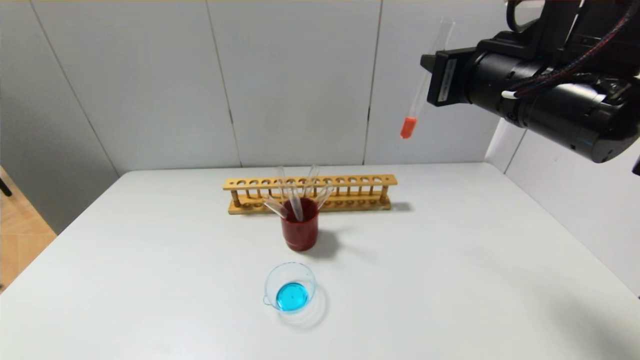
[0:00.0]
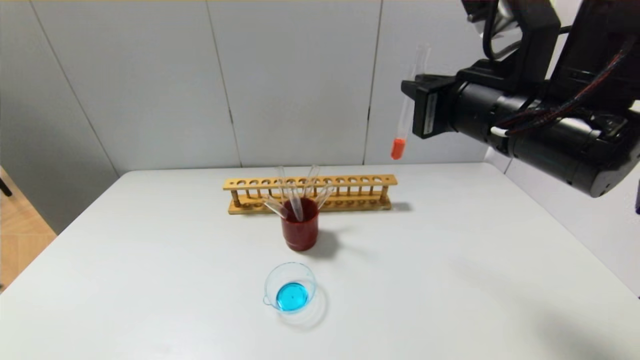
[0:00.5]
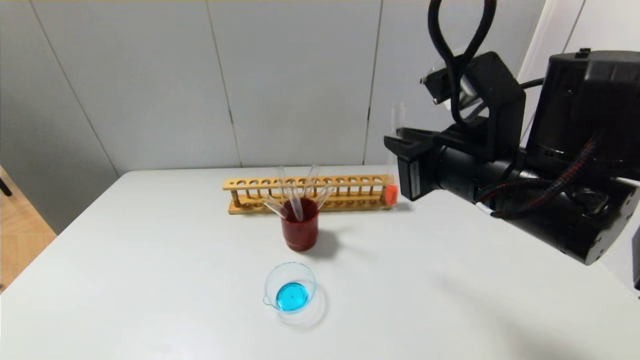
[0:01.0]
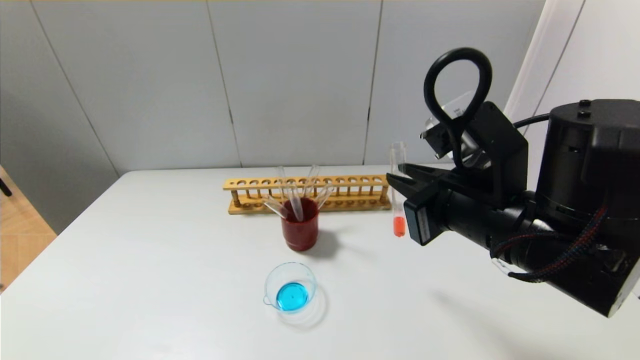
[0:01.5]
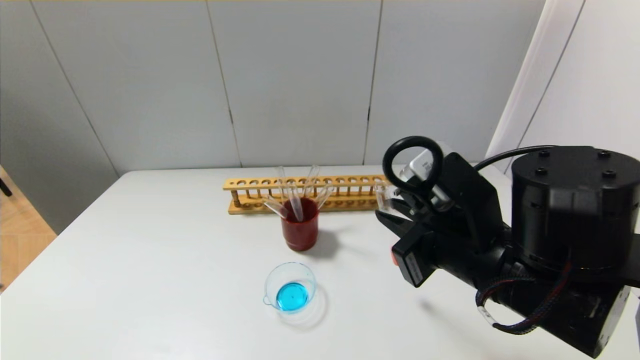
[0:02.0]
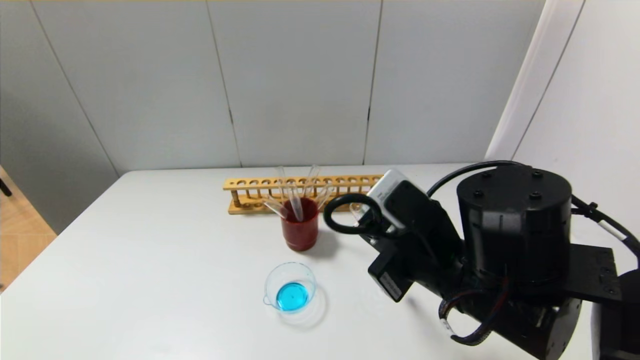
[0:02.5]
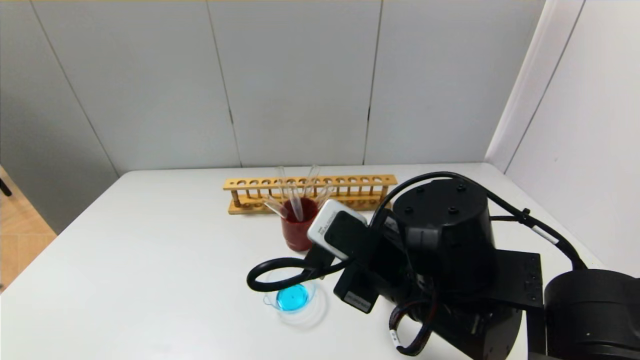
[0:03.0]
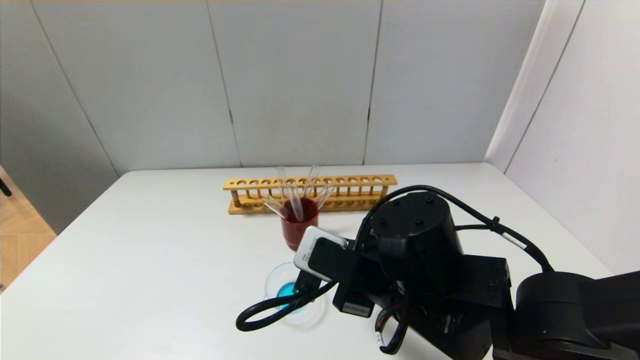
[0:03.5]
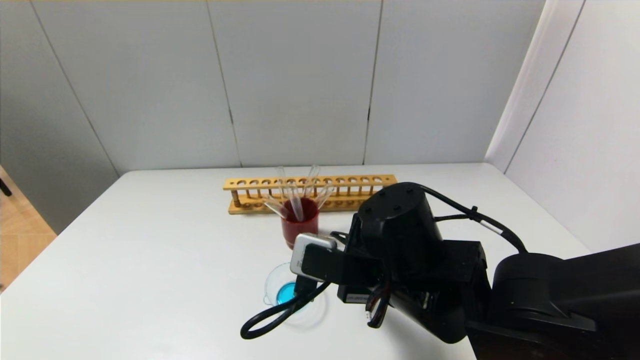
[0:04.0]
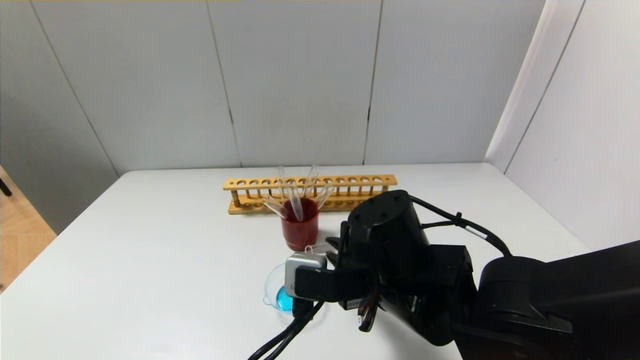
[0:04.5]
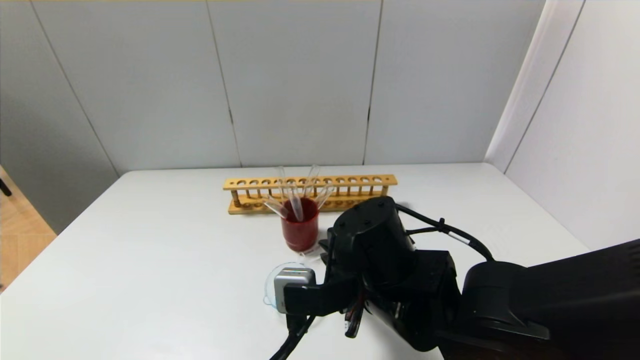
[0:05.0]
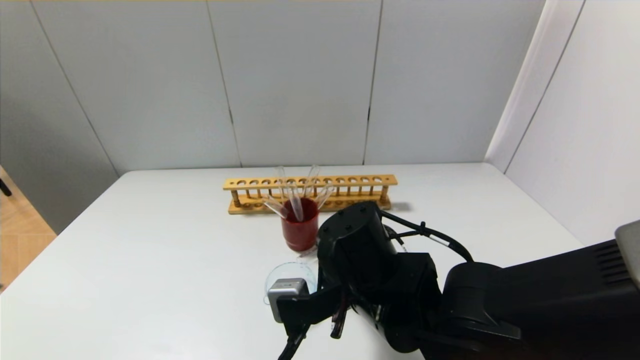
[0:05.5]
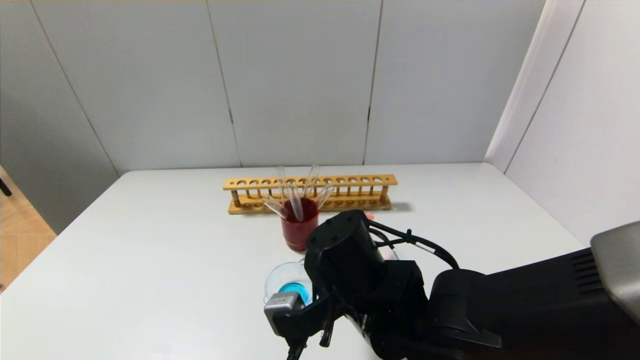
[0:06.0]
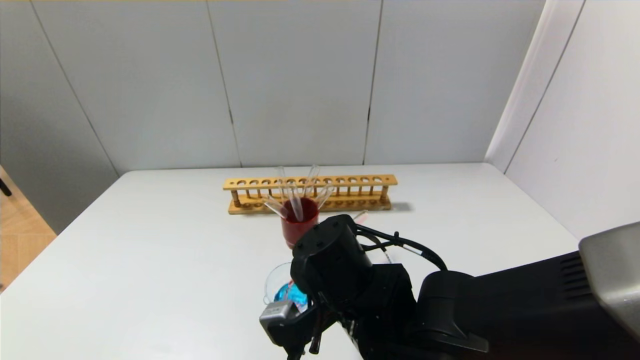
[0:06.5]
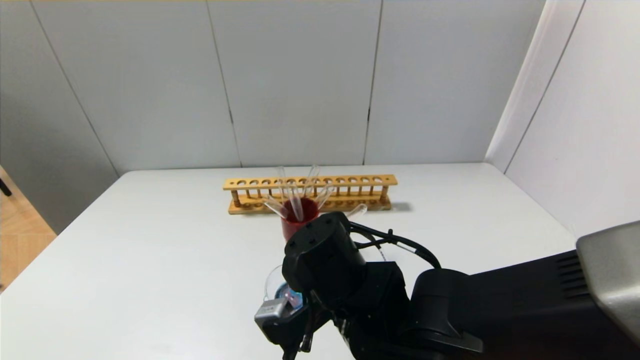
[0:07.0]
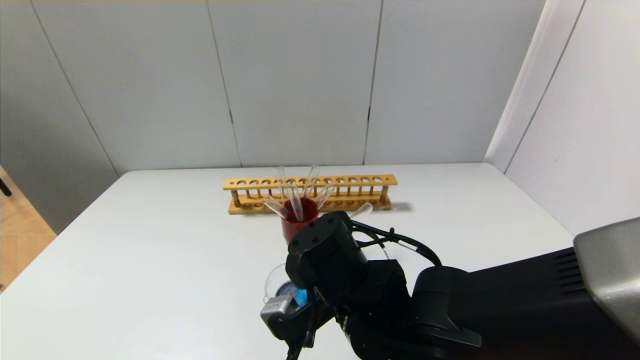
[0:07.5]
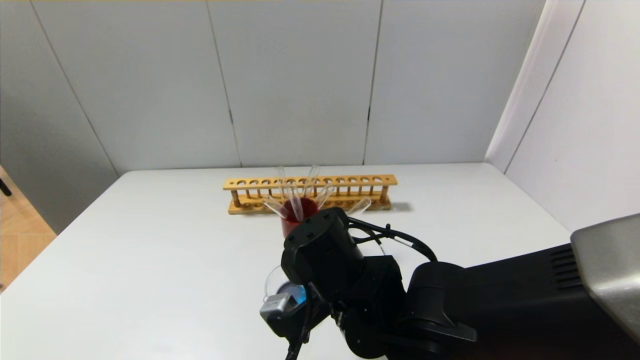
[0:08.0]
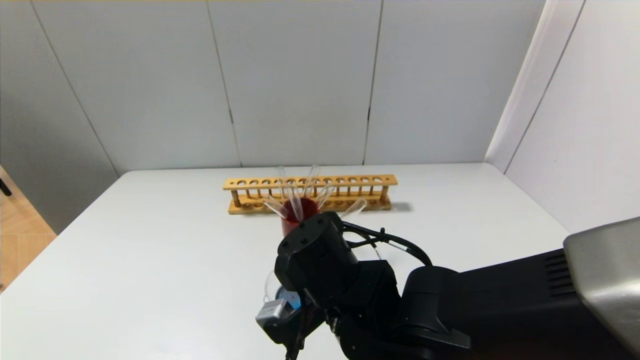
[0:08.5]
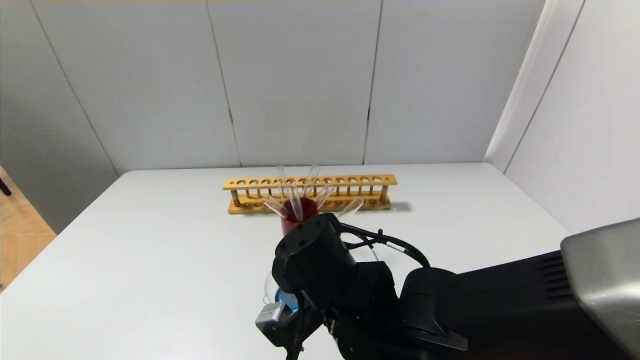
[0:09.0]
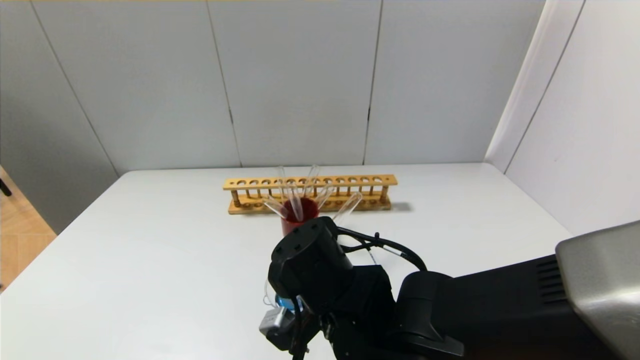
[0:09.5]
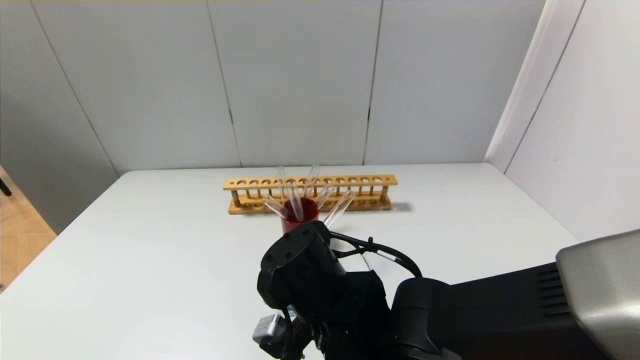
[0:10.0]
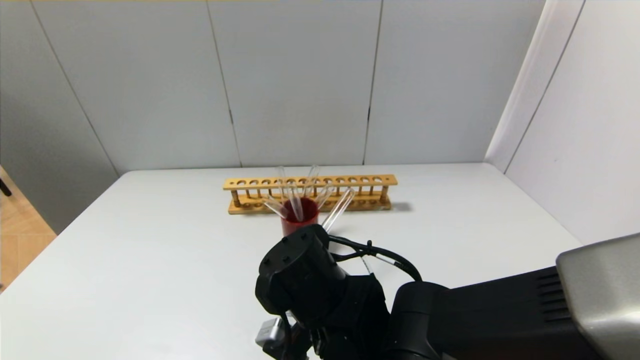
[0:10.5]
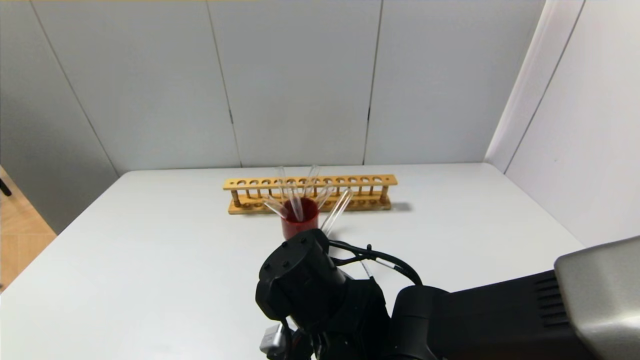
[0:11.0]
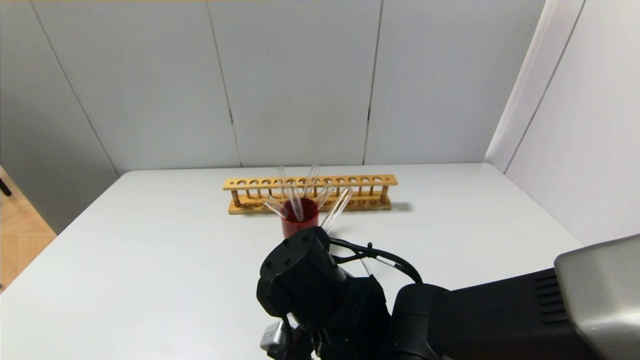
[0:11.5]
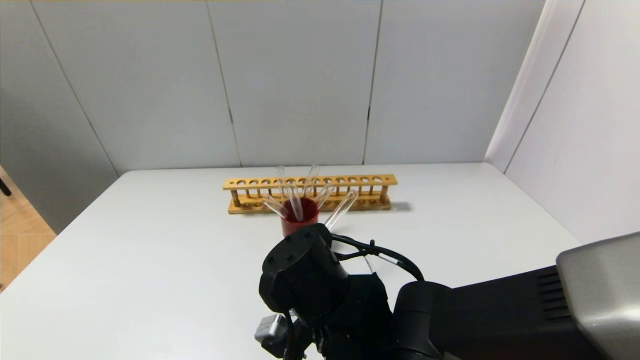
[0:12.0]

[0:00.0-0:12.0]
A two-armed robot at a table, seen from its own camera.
Step, 0:00.0 to 0:11.5: Pour the red reagent into the graduated cylinder with the right gripper.
0:00.0 to 0:02.0: The right gripper shifts roughly 15 cm downward and backward.
0:02.0 to 0:04.0: The right gripper travels to the left and downward by some 10 cm.
0:06.0 to 0:08.0: The grippers make only small movements.
0:08.0 to 0:12.0: The grippers stay close to where they were, moving slightly.

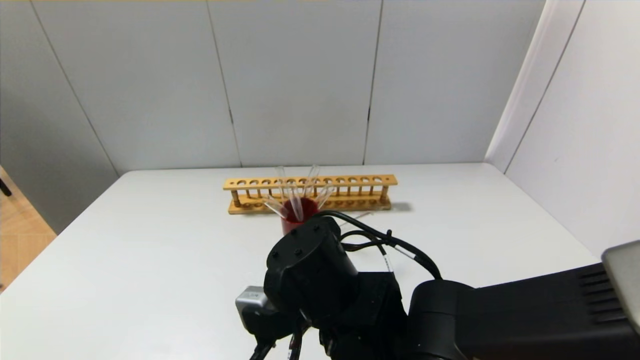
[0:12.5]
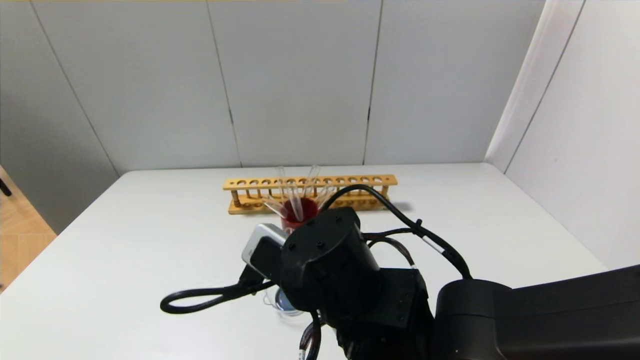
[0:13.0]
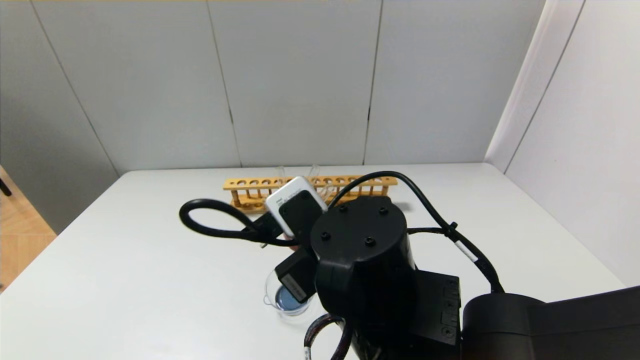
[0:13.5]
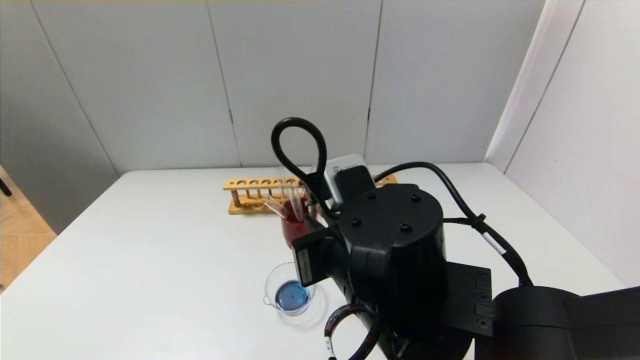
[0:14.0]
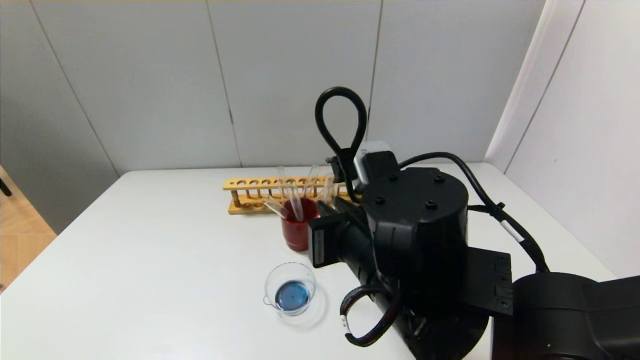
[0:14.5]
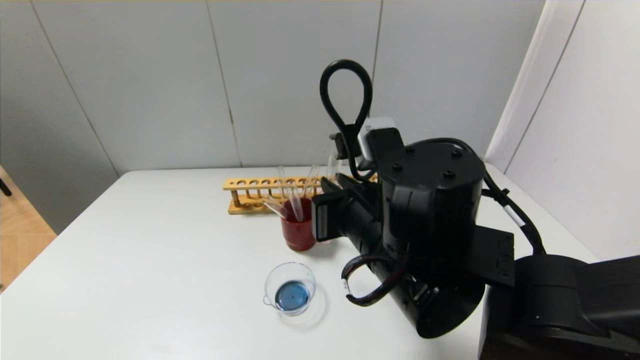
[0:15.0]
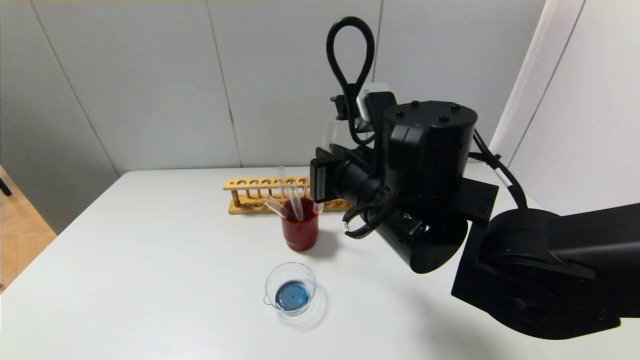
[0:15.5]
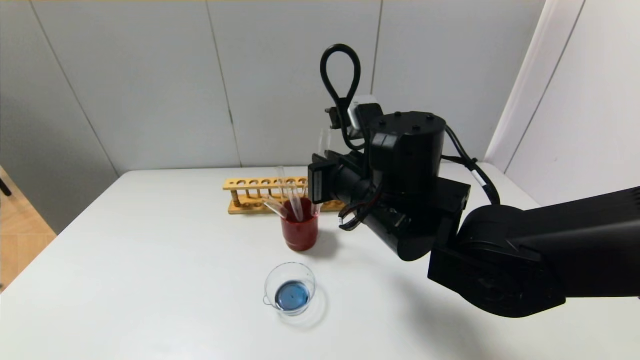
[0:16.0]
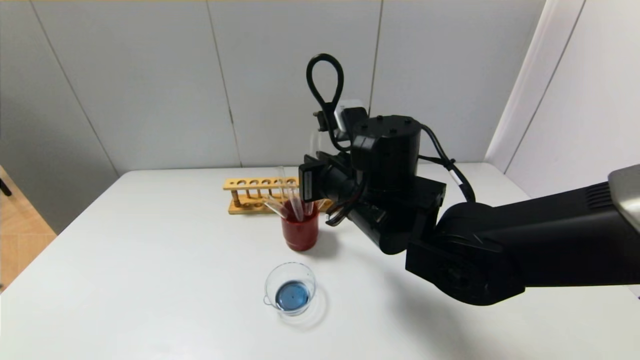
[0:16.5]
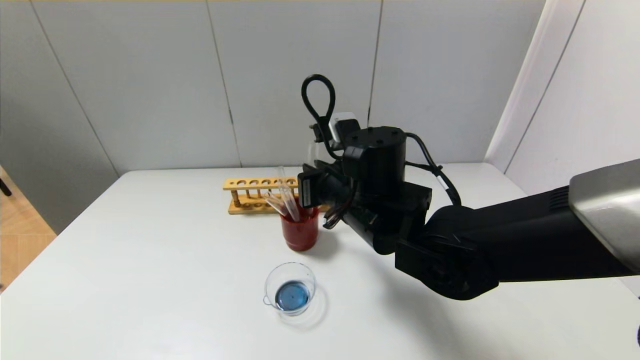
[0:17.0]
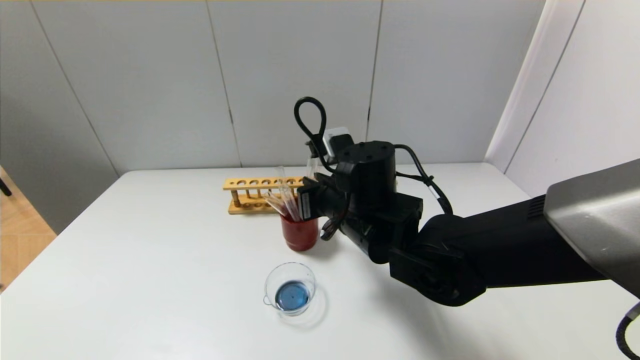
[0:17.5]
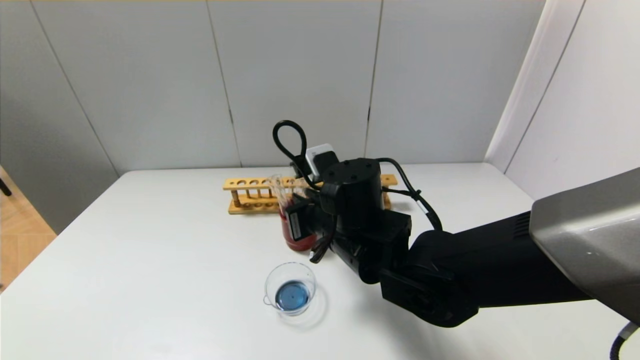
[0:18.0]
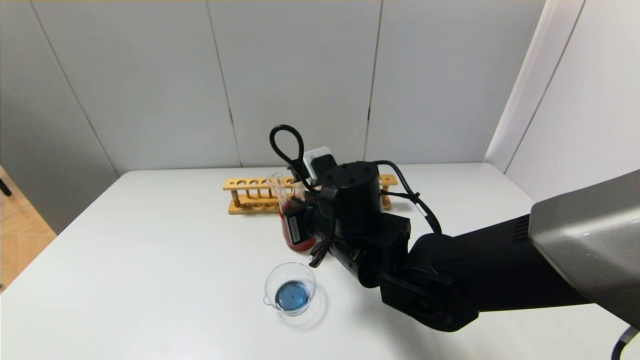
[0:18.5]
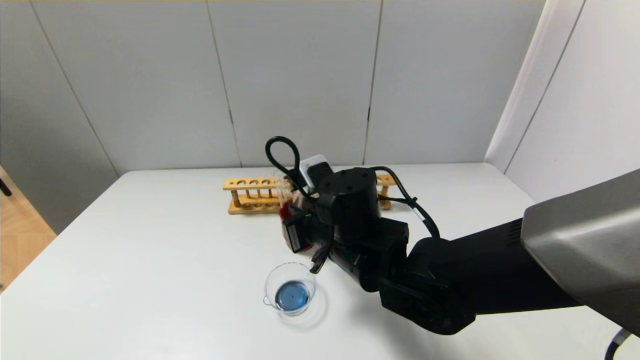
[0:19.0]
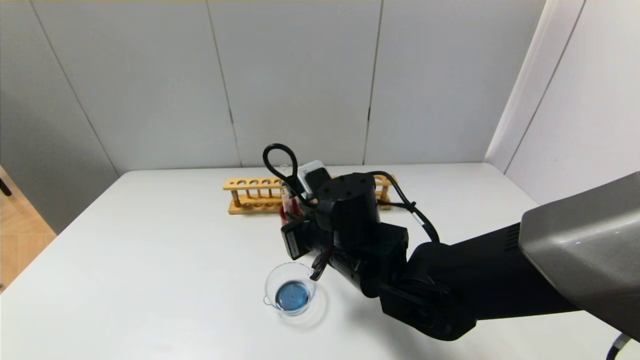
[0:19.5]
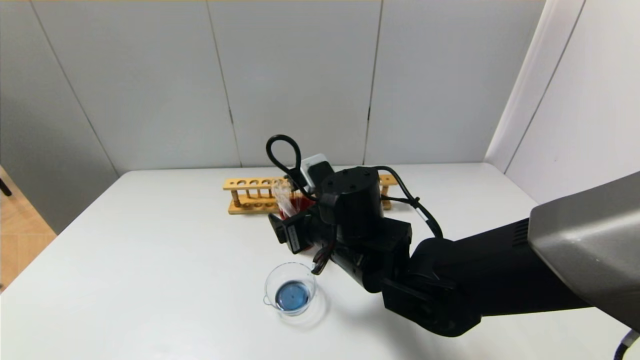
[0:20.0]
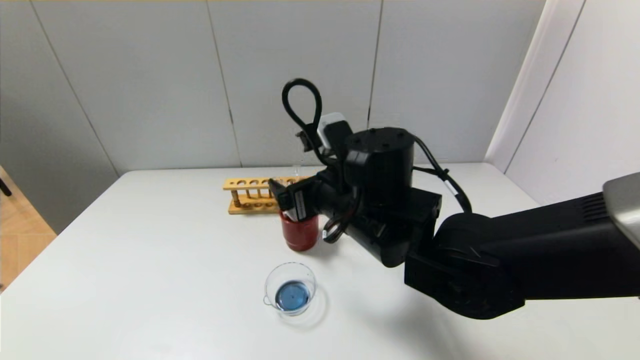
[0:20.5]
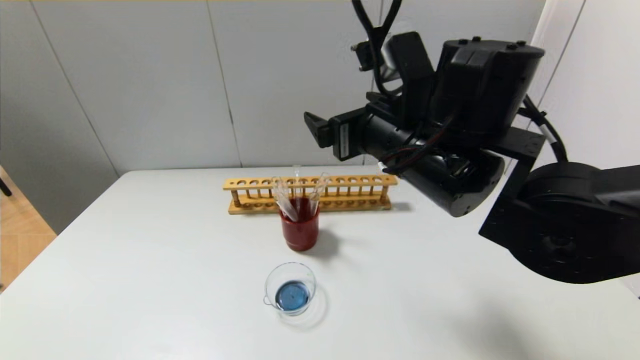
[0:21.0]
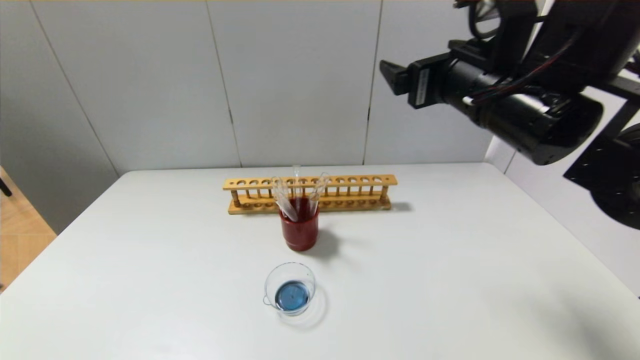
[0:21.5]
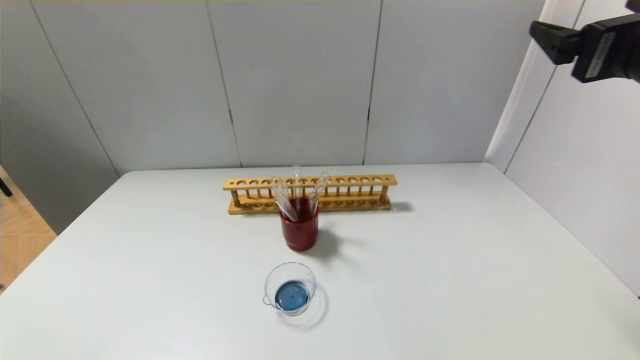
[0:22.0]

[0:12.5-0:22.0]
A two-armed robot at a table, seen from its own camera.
Step, 0:12.5 to 0:20.0: Place the test tube into the brown cup with the right gripper.
0:12.5 to 0:14.5: The right gripper heads upward, covering approximately 5 cm.
0:14.5 to 0:16.5: The right gripper heads forward, covering some 10 cm.
0:16.5 to 0:18.0: The right gripper heads downward, covering about 5 cm.
0:18.0 to 0:20.0: The right gripper opens its fingers.
0:20.0 to 0:22.0: The right gripper is displaced to the right and upward by roughly 30 cm.
